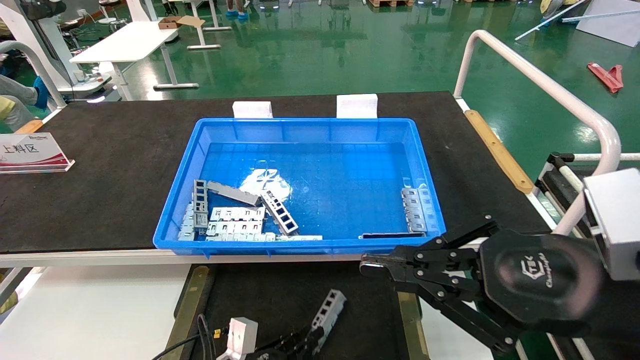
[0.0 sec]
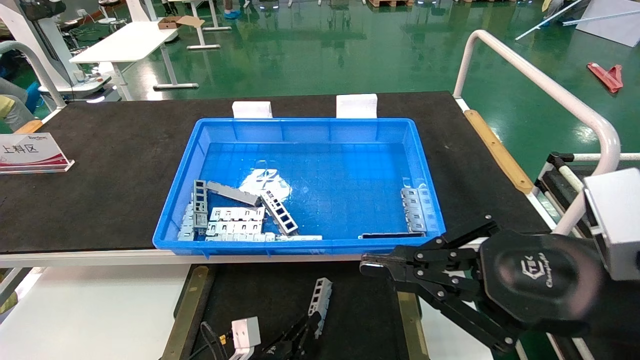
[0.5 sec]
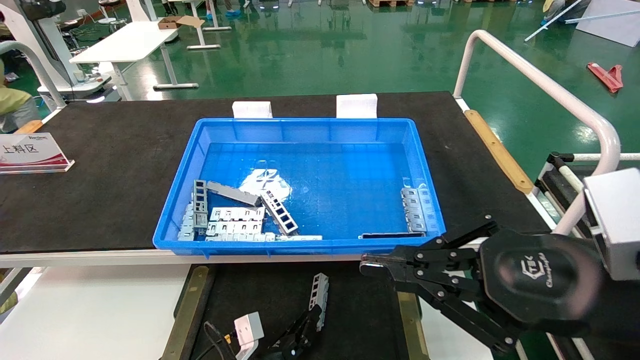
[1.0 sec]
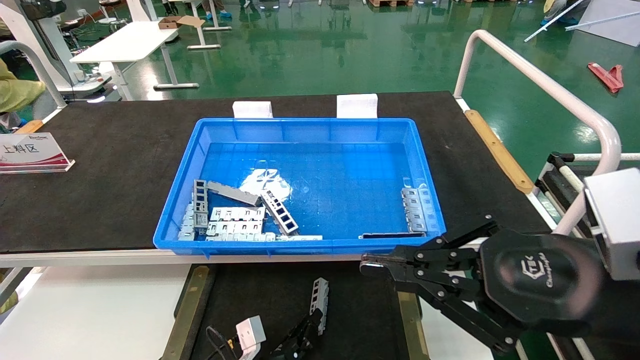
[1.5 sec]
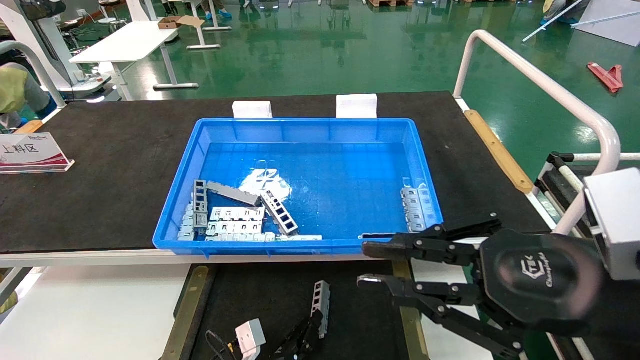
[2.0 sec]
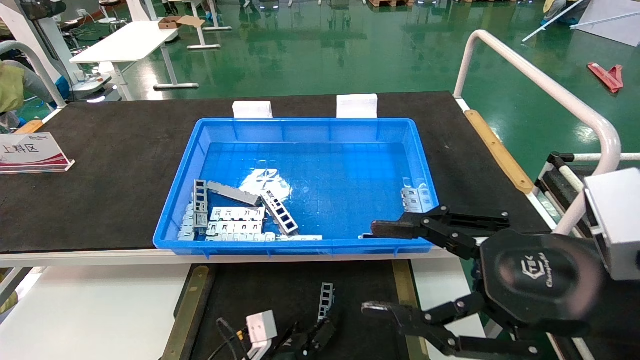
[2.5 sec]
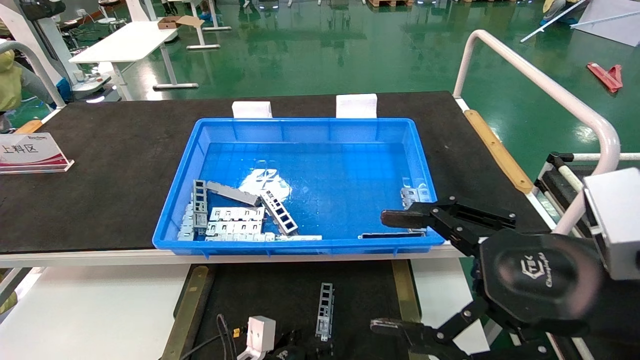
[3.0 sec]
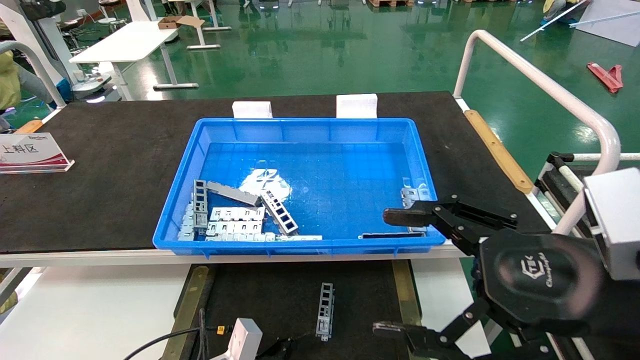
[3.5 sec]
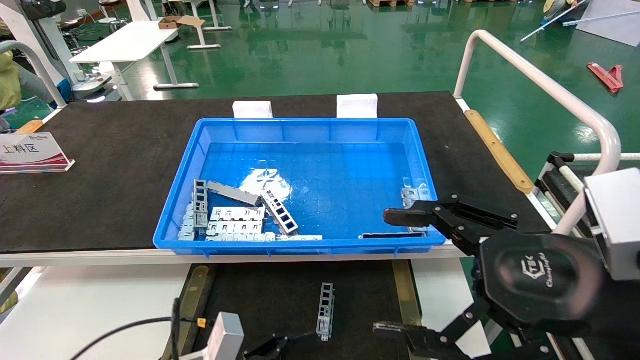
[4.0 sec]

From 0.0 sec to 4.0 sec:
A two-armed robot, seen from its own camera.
Task of the whole recording: Grasp the part with one hand and place it on the black container.
Step, from 0.0 sec to 2.0 sec: Place the front USB bracket into the box.
From 0.0 sec to 2.0 sec: The left gripper heads to the right, covering roughly 5 cm.
From 2.0 sec to 4.0 sec: The right gripper opens its fingers. Meanwhile the left gripper shifts roughly 20 cm upward, backward and to the left, and opens its fingers.
